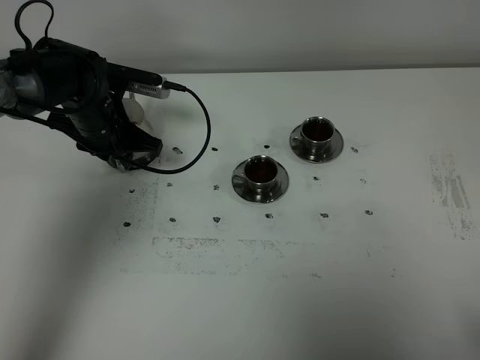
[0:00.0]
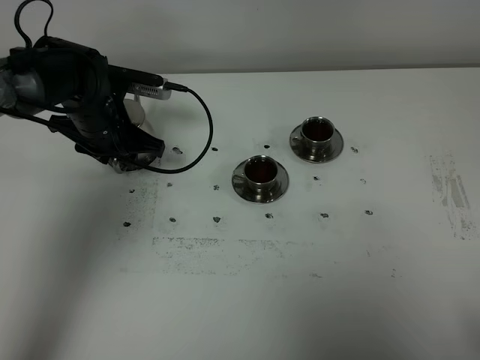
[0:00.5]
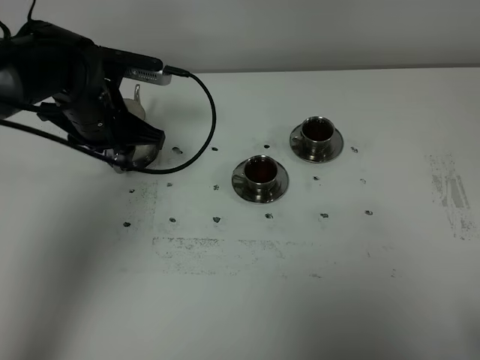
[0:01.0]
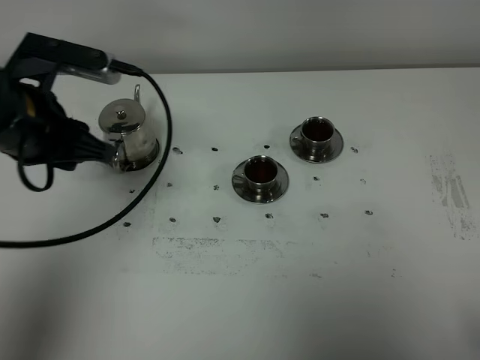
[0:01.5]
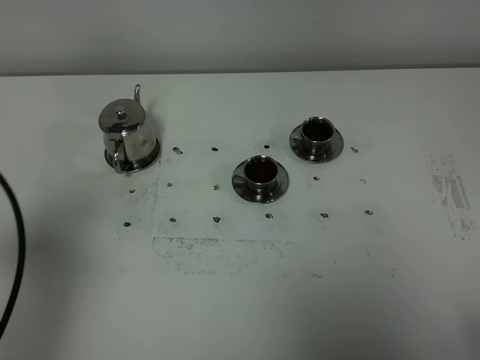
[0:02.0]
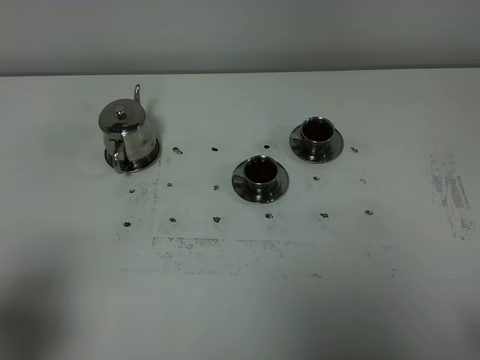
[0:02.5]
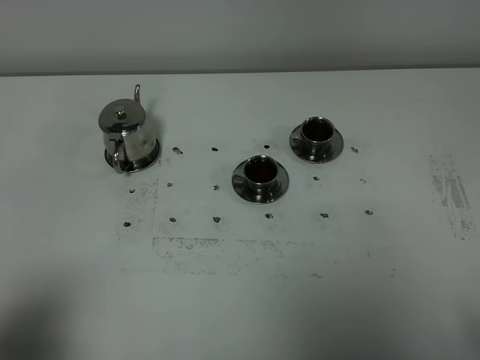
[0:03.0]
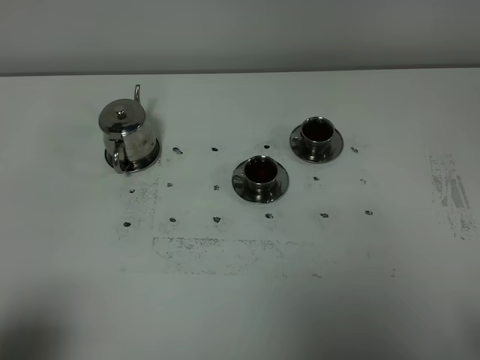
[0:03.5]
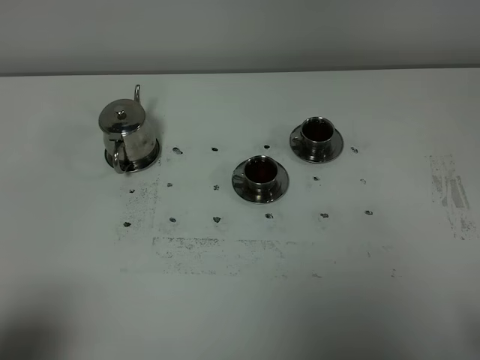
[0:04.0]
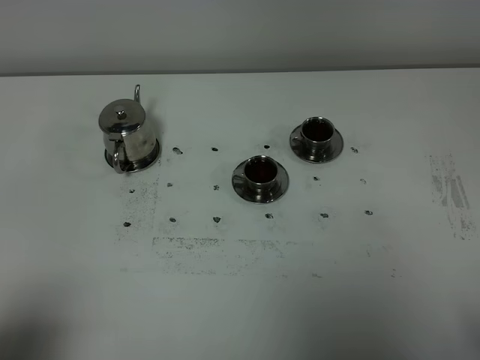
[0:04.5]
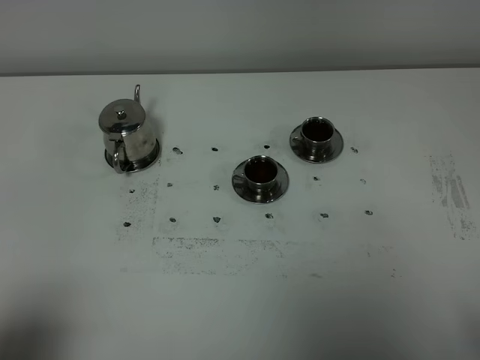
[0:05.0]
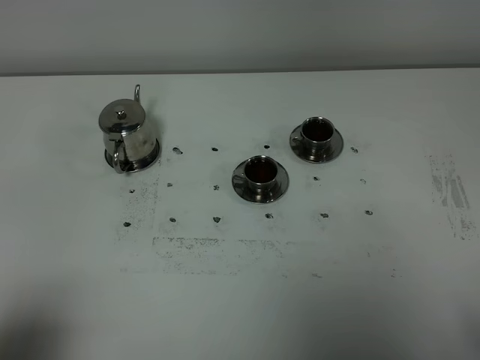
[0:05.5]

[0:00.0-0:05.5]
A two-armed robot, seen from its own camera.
Task of the whole recording: grasp the stainless steel teapot and pour the tea into the two stainless steel teacups one by one, put the stainless steel teapot back in its original place.
0:00.0 to 0:02.0: The left gripper is displaced backward and upward by roughly 35 cm.
0:02.0 to 0:03.5: The left gripper heads backward and downward, covering approximately 15 cm.

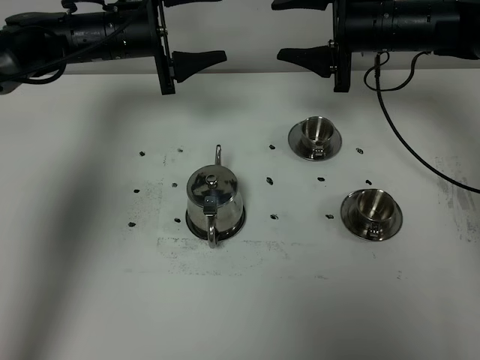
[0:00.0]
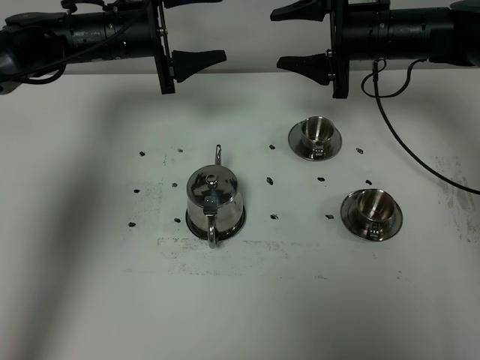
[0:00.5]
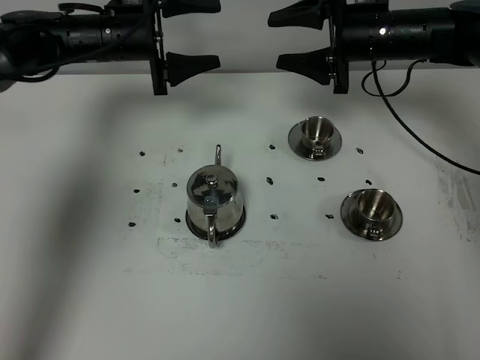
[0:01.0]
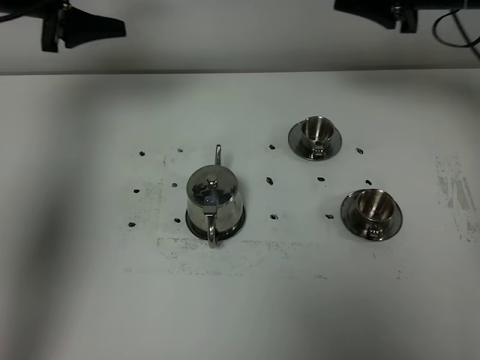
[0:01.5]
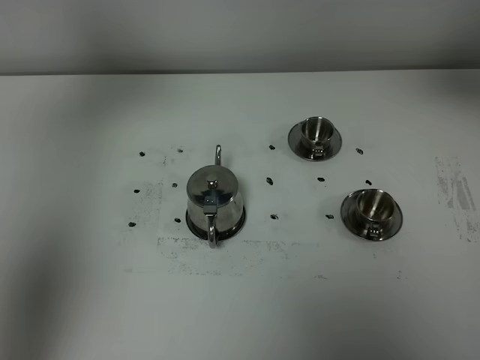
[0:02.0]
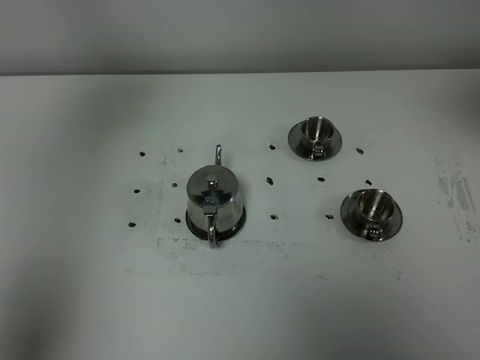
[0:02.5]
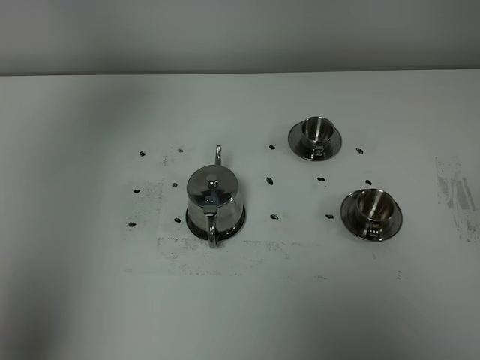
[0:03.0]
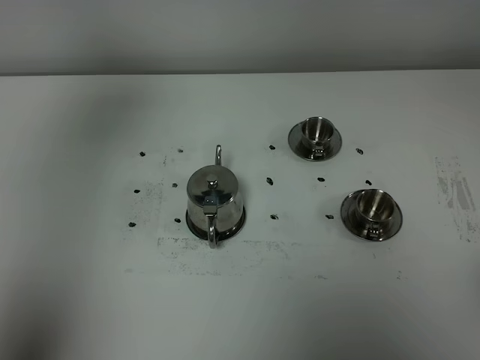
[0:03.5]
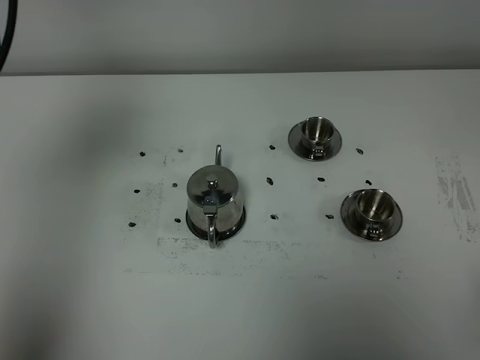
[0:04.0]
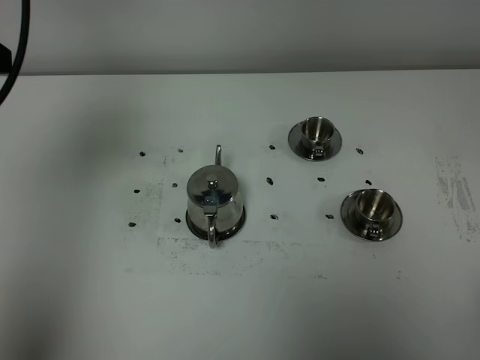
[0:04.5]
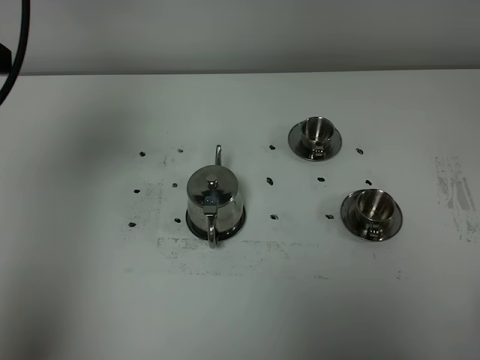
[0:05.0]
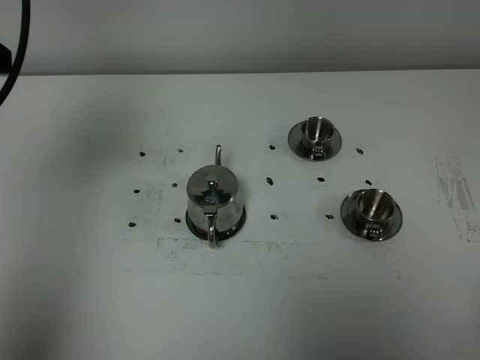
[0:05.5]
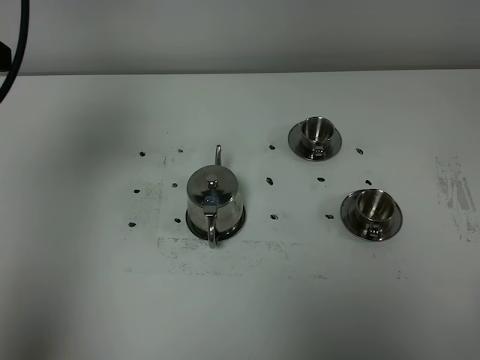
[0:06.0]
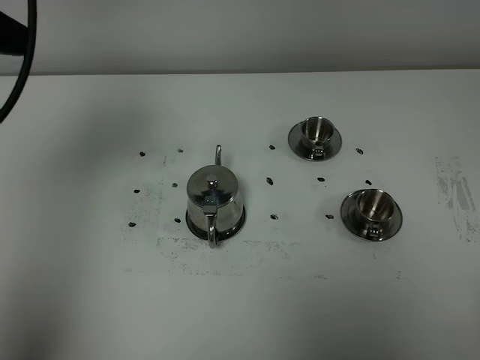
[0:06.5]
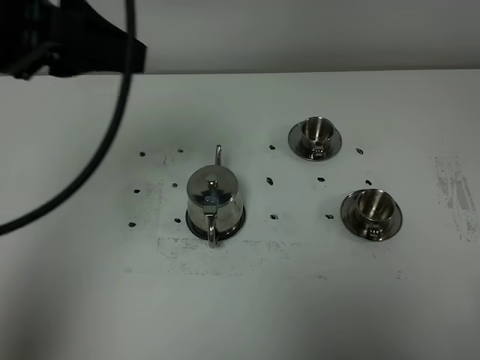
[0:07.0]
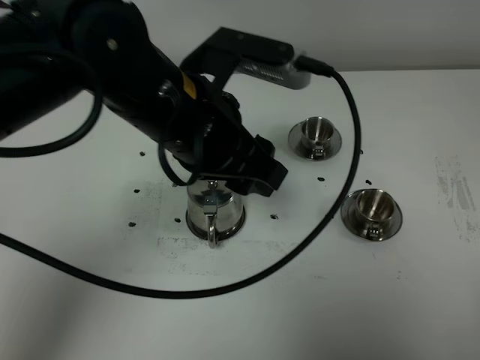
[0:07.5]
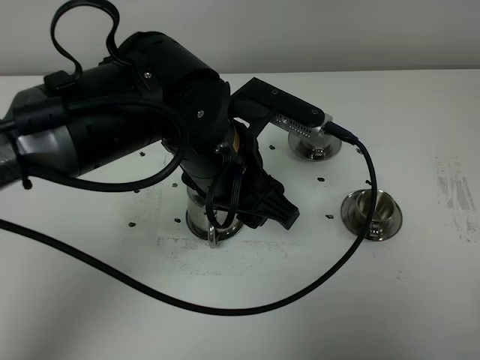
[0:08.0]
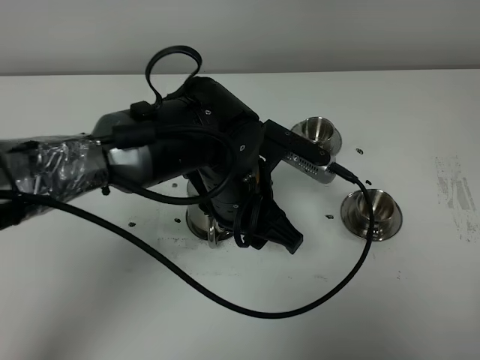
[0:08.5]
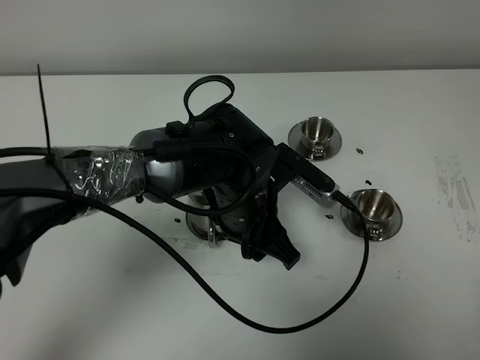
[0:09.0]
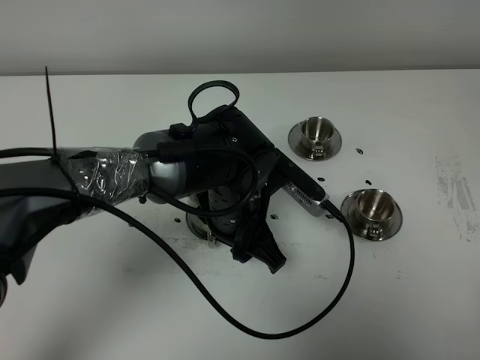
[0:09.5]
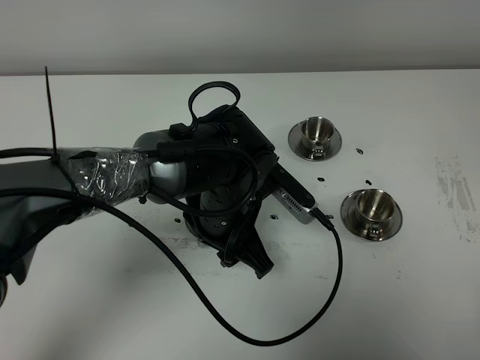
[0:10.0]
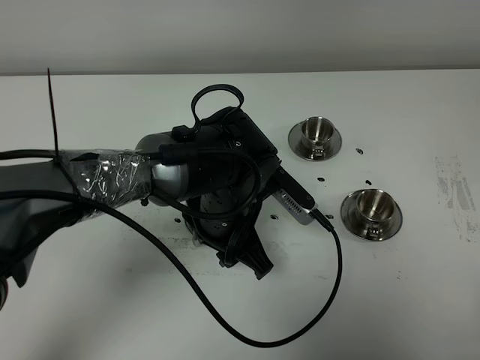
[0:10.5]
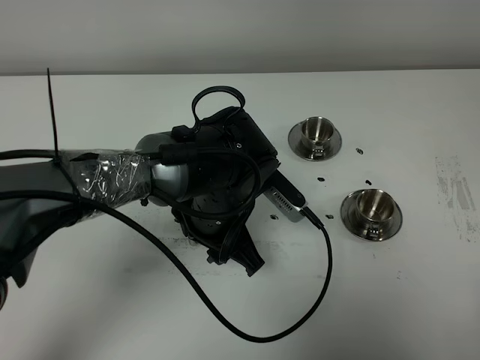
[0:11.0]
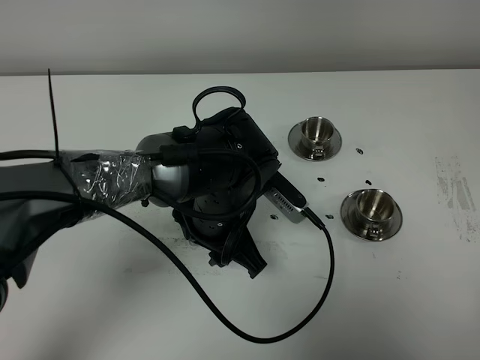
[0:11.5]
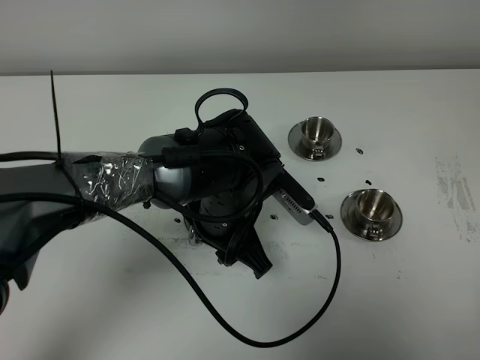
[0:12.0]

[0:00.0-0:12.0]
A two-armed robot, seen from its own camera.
Task of the whole recording: grasp the stainless steel teapot and pour the tea into the two stainless steel teacups one by one, put the stainless steel teapot back in its original place.
0:00.0 to 0:02.0: The right gripper shifts approximately 30 cm upward, backward and to the right. The left gripper travels upward, backward and to the left by some 30 cm.
0:02.0 to 0:04.0: The left gripper goes roughly 10 cm backward. Meanwhile the right gripper goes some 35 cm backward and downward.
0:06.0 to 0:08.0: The left gripper heads to the right and downward, covering roughly 30 cm.
0:08.0 to 0:10.0: The left gripper travels downward by some 10 cm.
0:10.0 to 0:12.0: The grippers make only small movements.

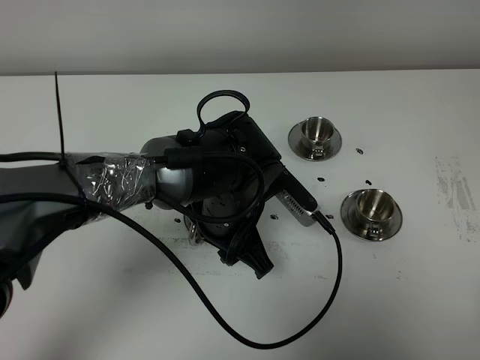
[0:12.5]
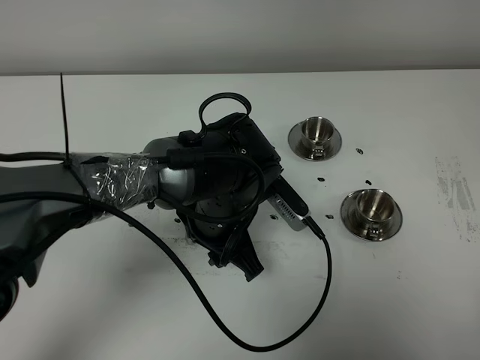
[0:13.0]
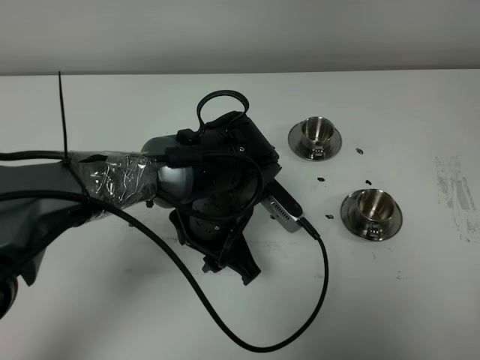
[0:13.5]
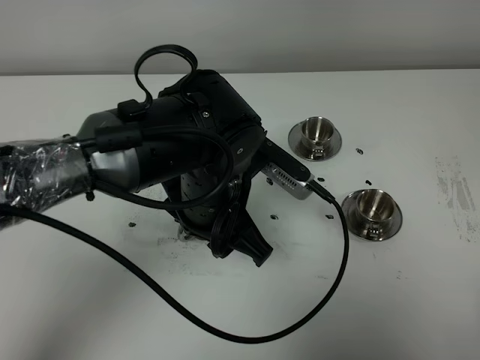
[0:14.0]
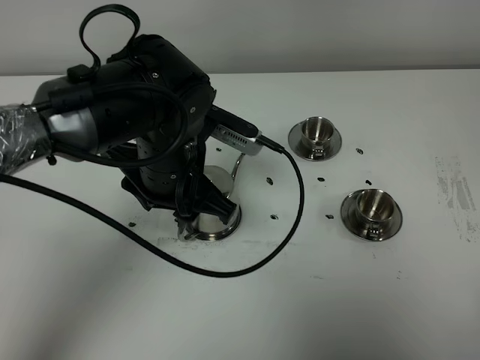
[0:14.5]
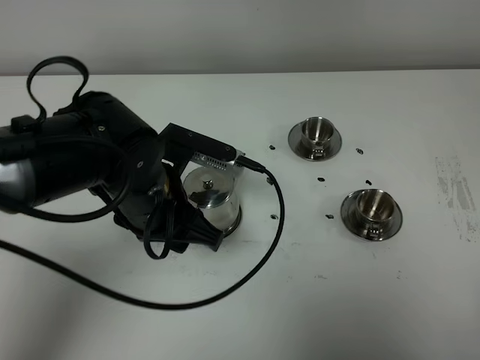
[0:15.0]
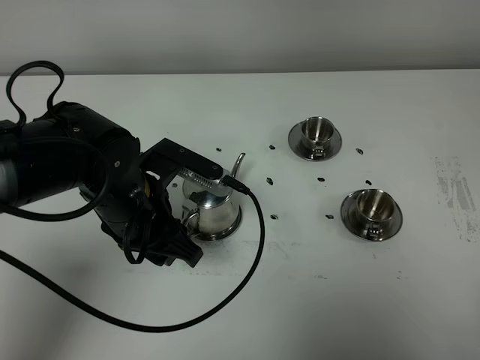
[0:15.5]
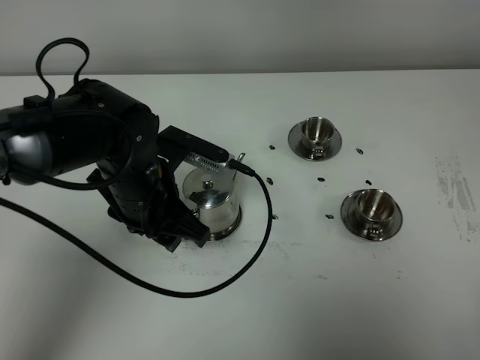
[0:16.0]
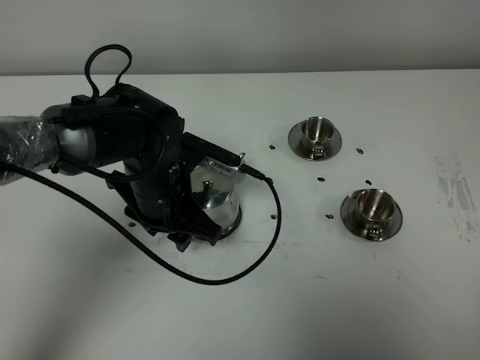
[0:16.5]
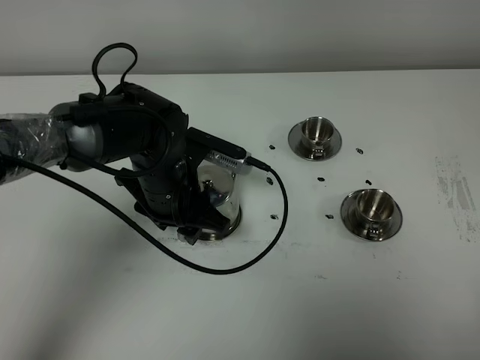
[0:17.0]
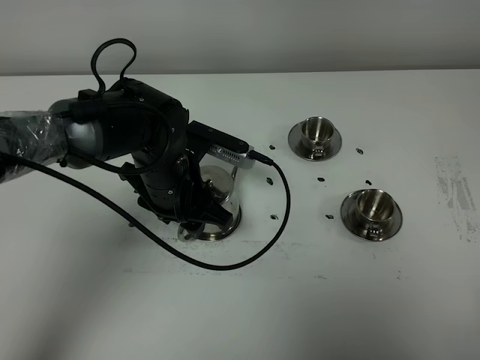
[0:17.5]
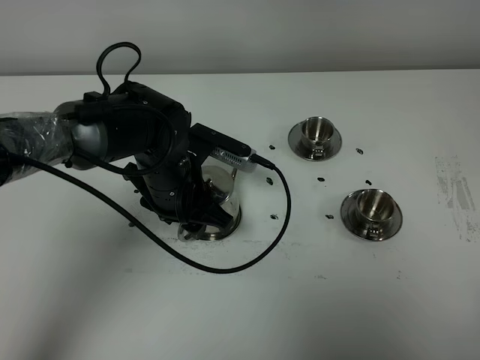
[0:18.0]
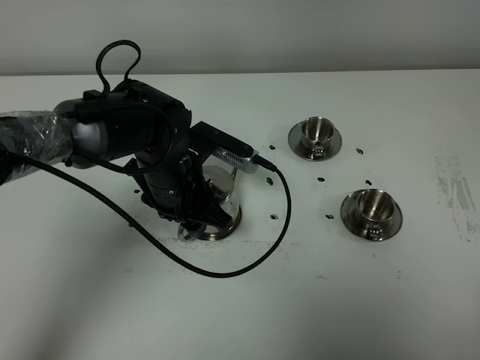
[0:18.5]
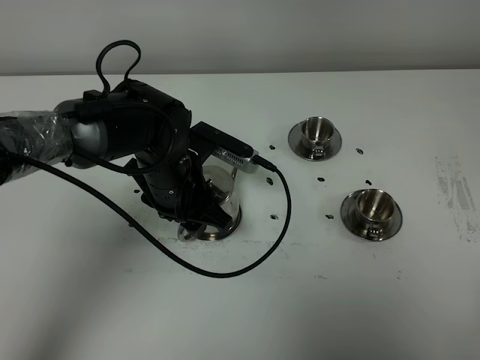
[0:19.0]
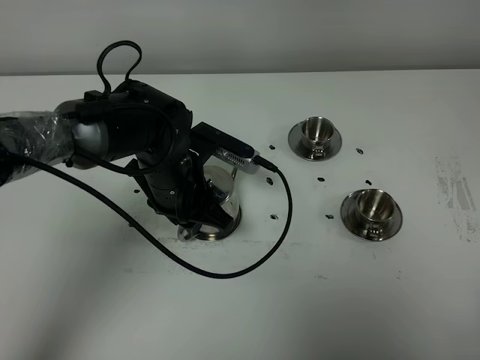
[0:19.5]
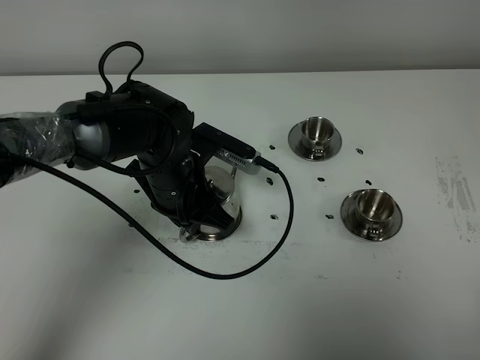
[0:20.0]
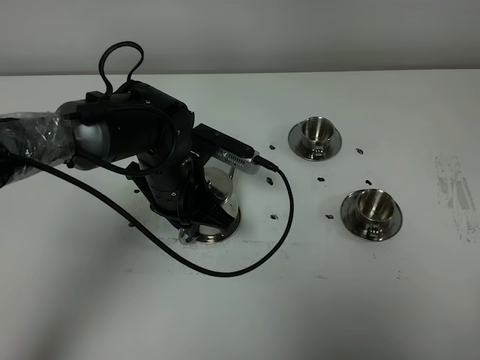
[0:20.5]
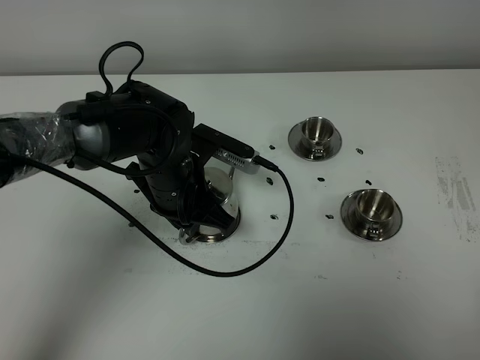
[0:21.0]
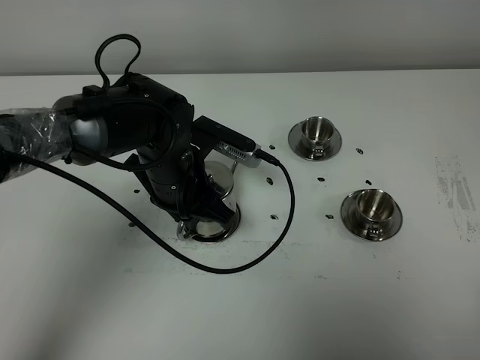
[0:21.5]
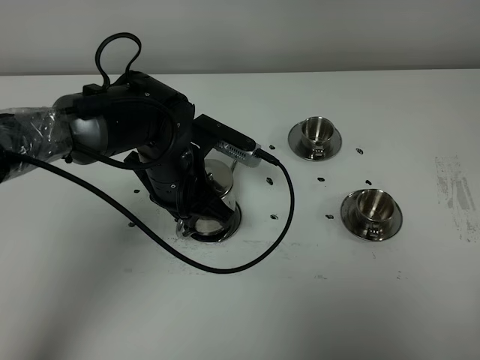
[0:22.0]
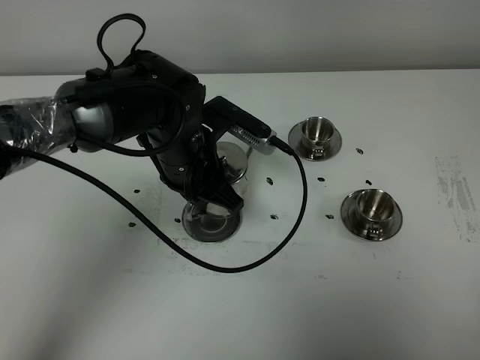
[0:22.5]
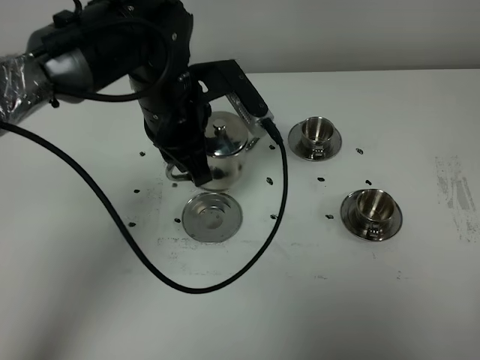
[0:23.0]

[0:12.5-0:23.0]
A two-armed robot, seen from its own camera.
Task of the whole recording: grasp the stainless steel teapot and pour the tea into the two stainless steel teacups one by one, put the stainless steel teapot back in its original place.
Step, 0:12.5 to 0:21.5: Pick up the teapot with the left gripper.
0:12.5 to 0:14.5: The left gripper heads upward and to the left, covering some 10 cm.
0:14.5 to 0:16.5: The left gripper travels downward by some 5 cm.
0:16.5 to 0:19.0: There are only small adjustments of the grippers.
0:19.0 to 0:21.0: The left gripper closes up.
0:21.0 to 0:23.0: The left gripper moves upward, roughly 10 cm.
